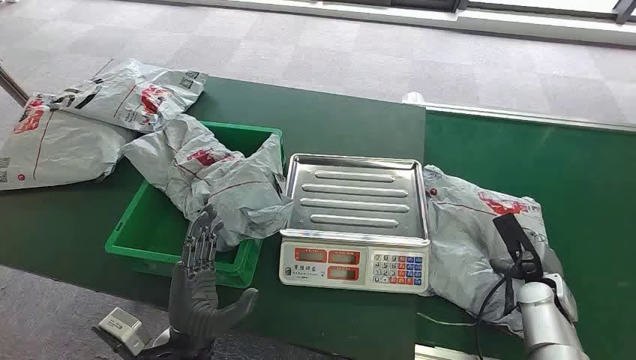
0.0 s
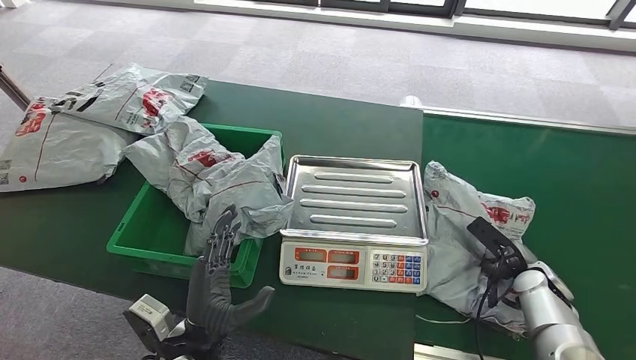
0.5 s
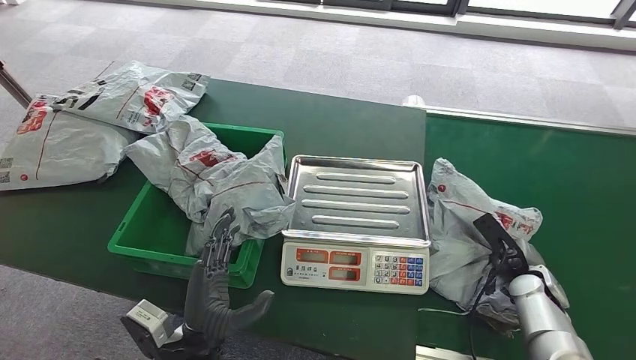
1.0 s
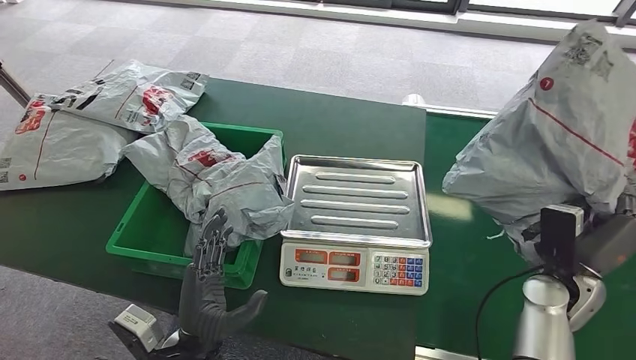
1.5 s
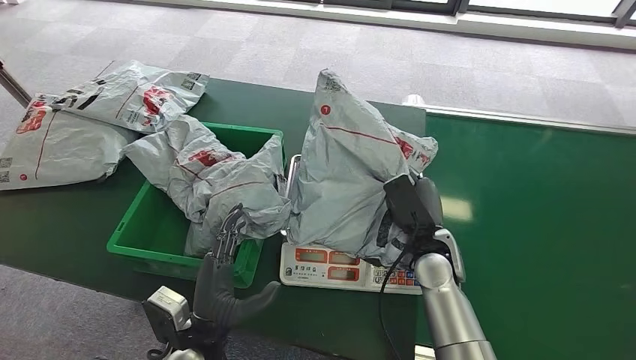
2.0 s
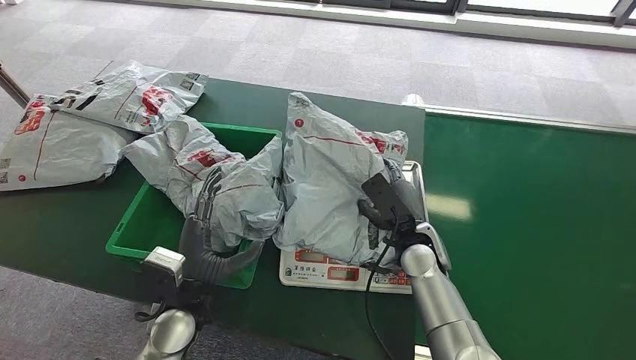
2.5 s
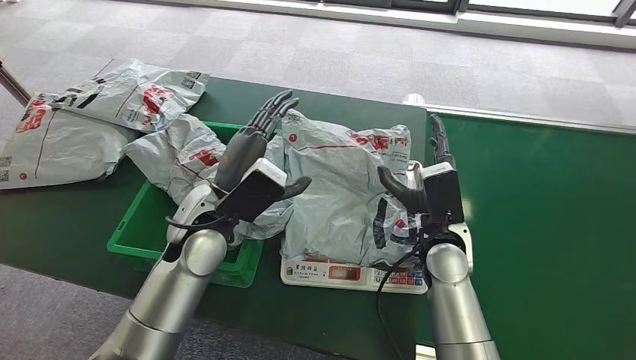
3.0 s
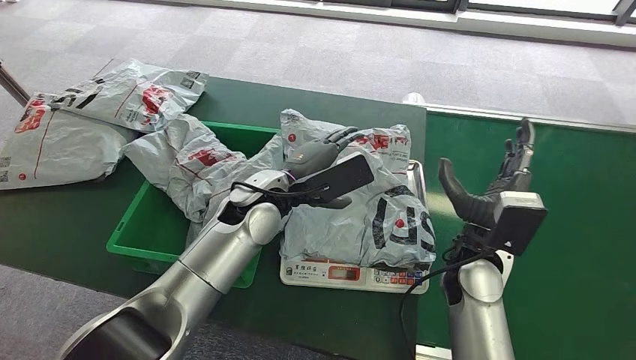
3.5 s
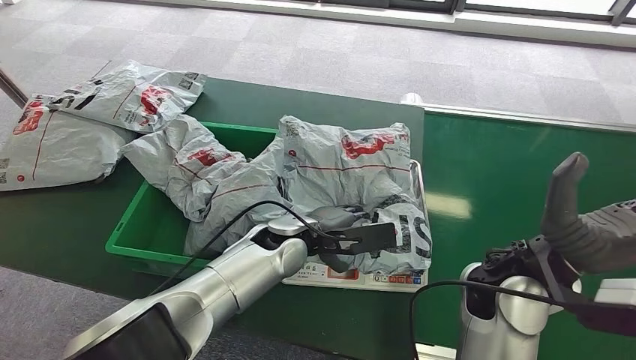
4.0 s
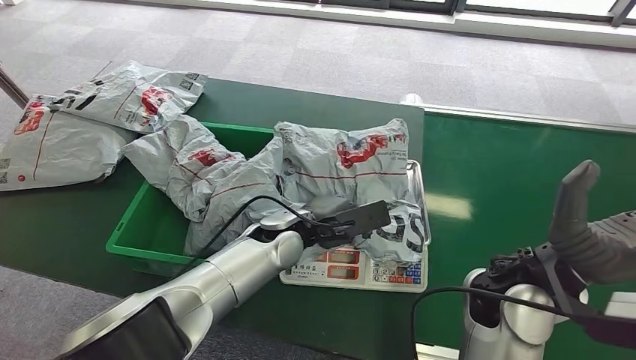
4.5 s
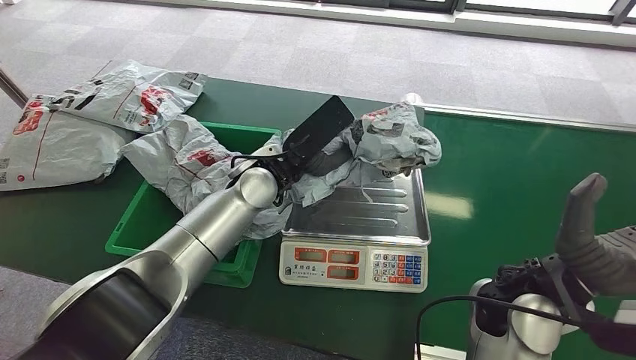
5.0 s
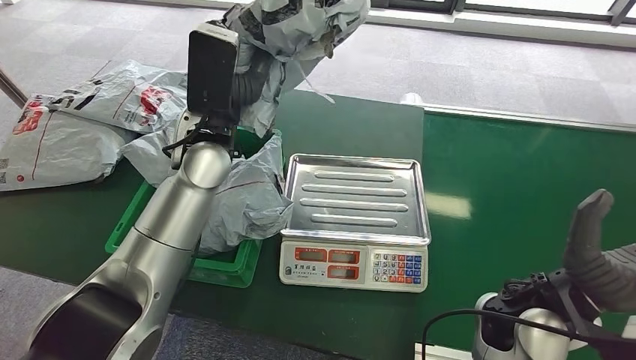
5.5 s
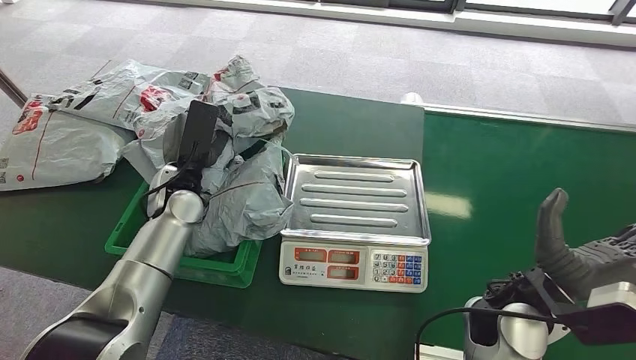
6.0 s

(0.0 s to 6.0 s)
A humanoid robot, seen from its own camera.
Step, 0.0 s - 1.5 s: Pick up the package from the conveyor belt.
Step, 2.0 s - 2.5 s: Place the package onto the inbound machine.
Step, 4.5 s - 5.0 s: Pick up the package from the inbound machine.
Step, 5.5 s - 6.0 s: Place the package into the parcel locker.
